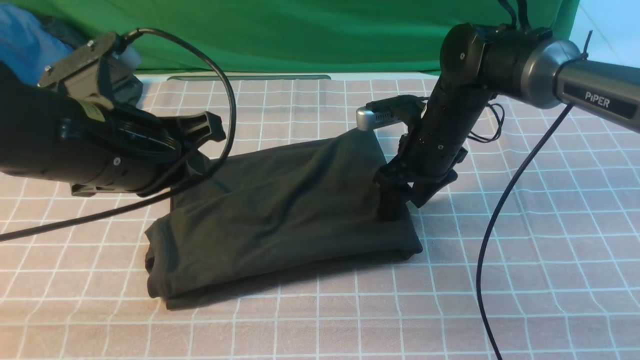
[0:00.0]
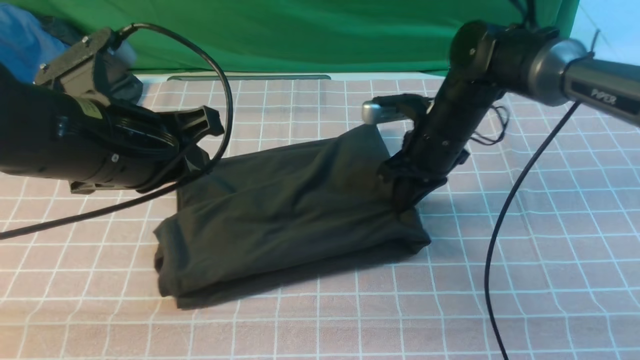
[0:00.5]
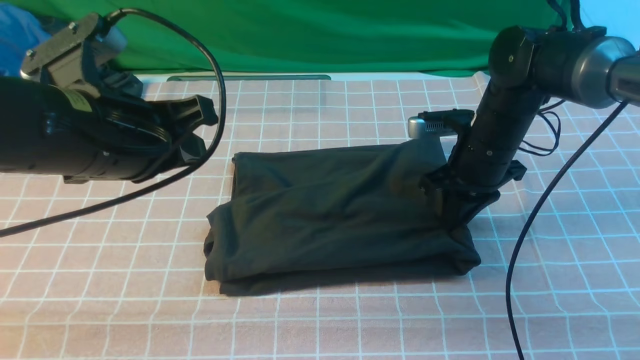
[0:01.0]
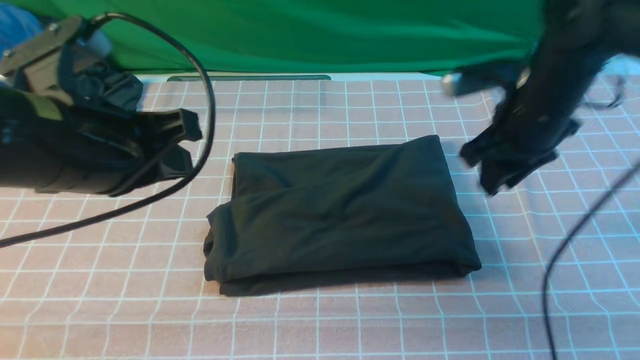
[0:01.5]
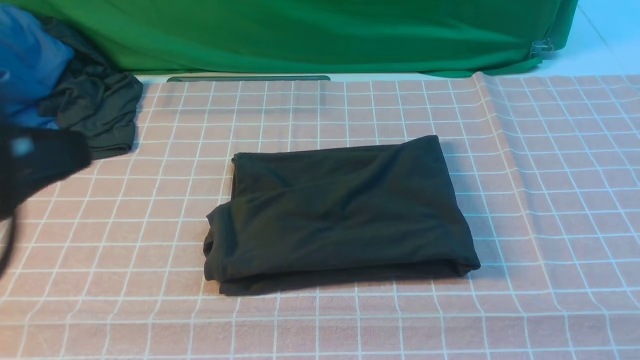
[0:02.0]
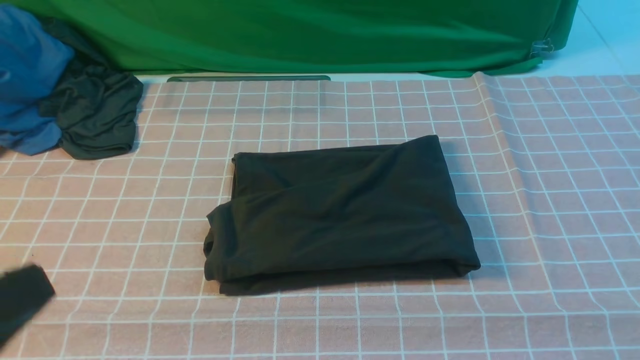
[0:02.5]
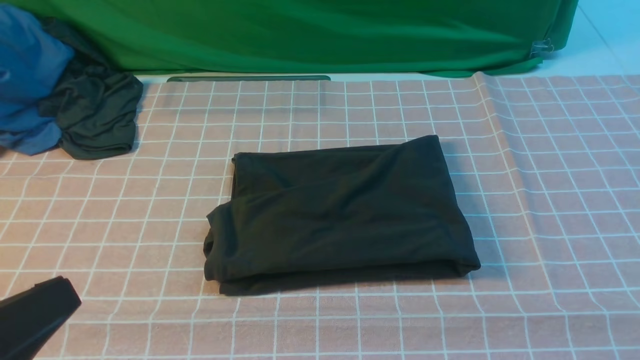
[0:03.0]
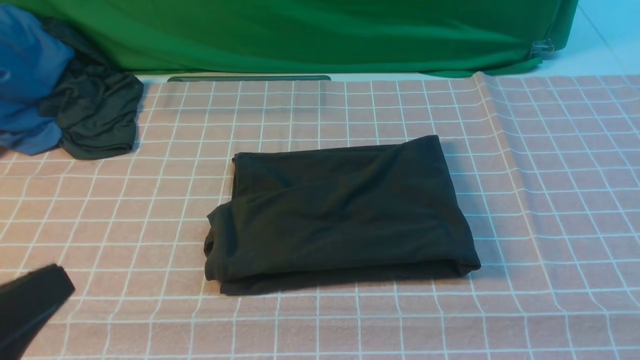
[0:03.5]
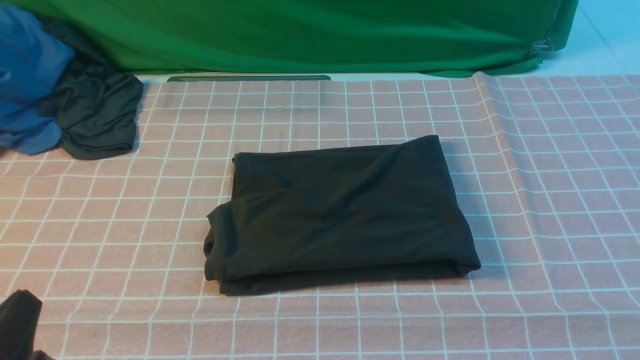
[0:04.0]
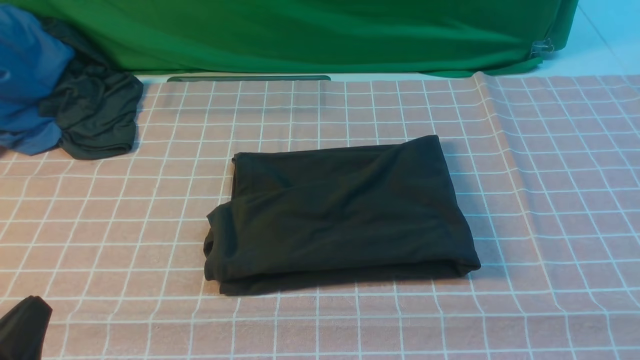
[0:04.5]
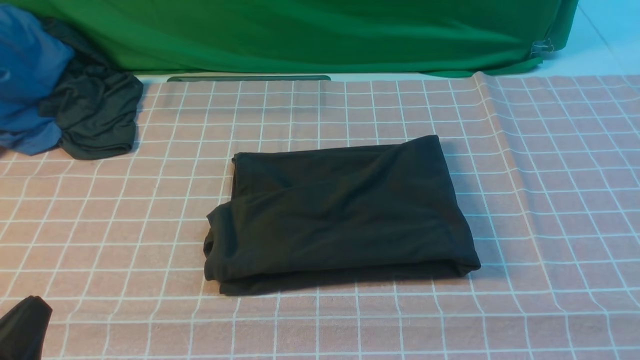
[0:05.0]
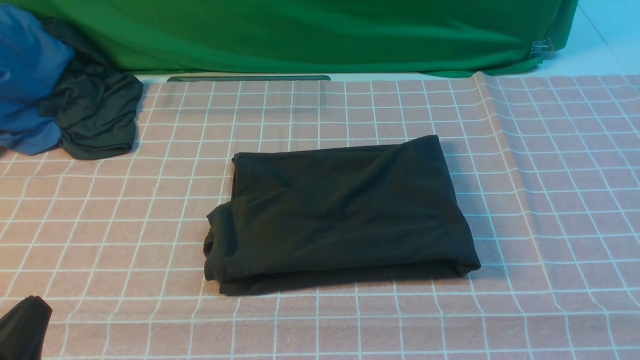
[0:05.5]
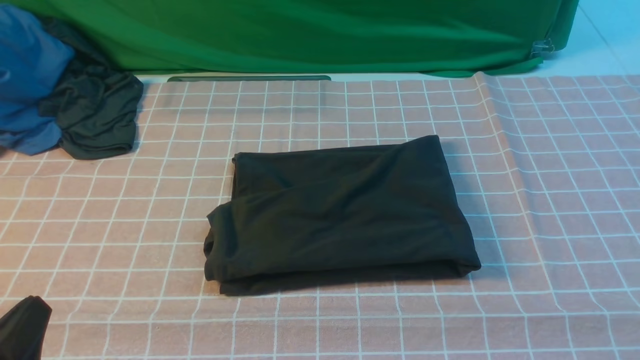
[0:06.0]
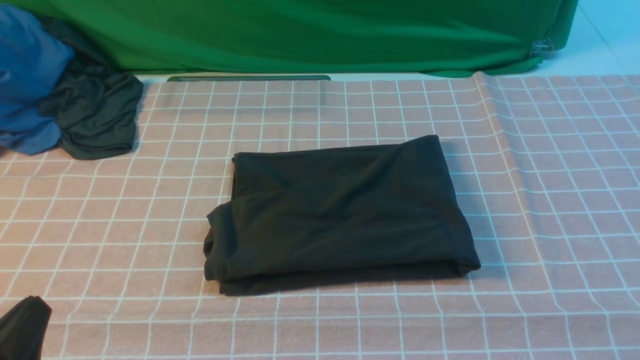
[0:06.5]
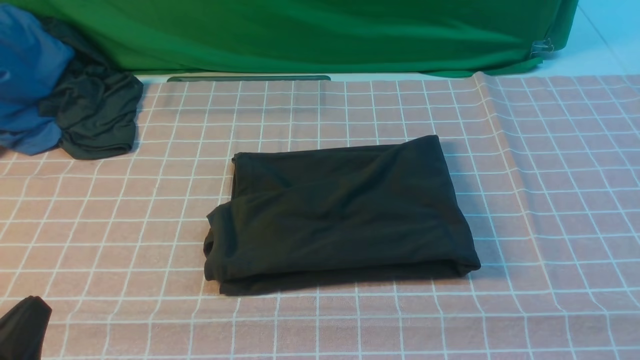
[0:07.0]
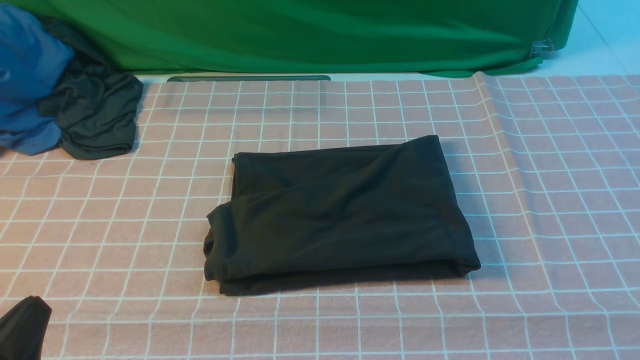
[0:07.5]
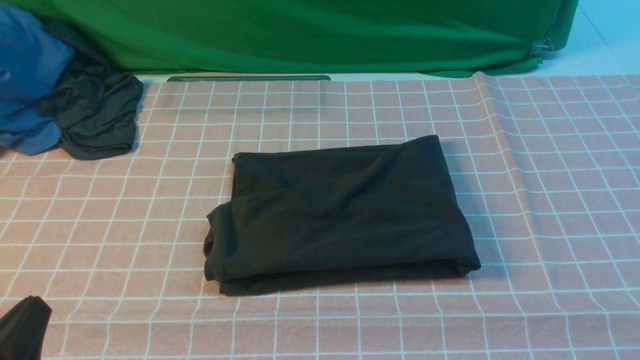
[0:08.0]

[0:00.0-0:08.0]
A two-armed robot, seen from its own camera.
0:00.0 to 0:02.0: The right gripper shifts some 40 cm backward, upward and to the right, and closes; the left gripper is displaced backward and upward by some 15 cm.
0:02.0 to 0:04.0: The left gripper is displaced downward by some 20 cm.

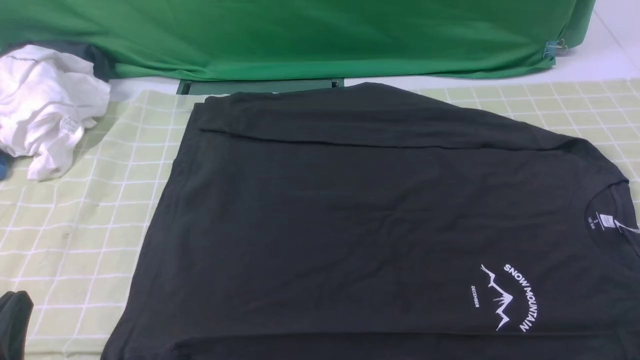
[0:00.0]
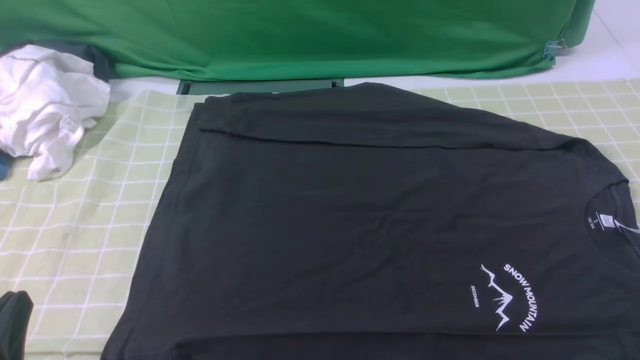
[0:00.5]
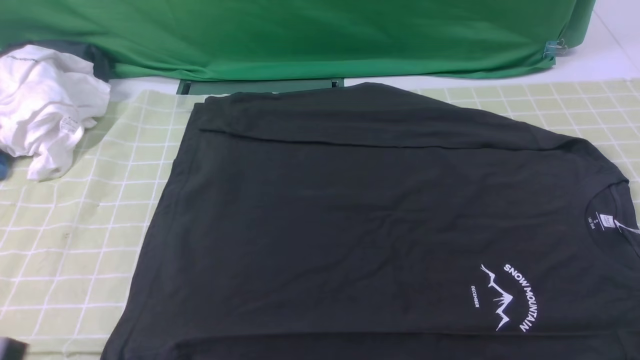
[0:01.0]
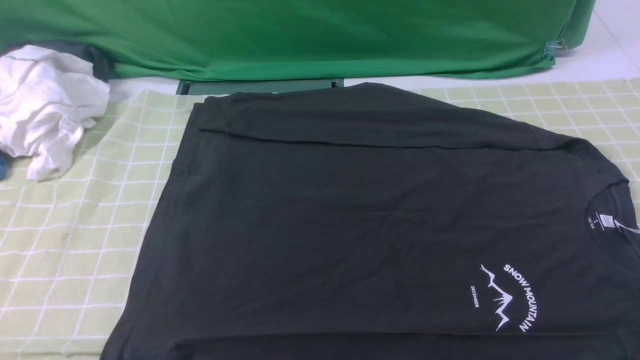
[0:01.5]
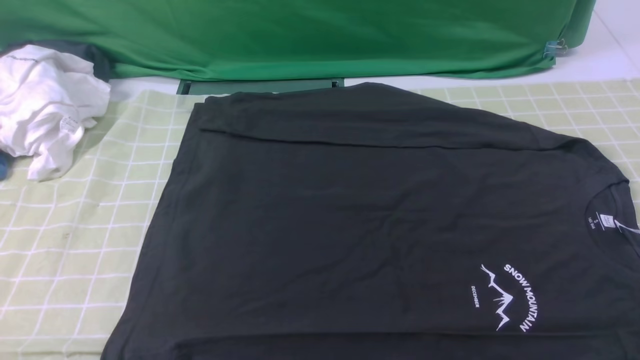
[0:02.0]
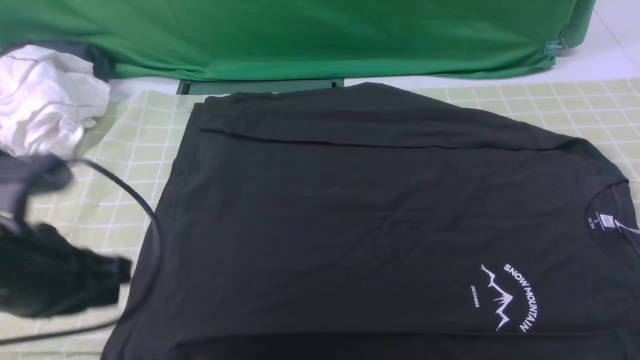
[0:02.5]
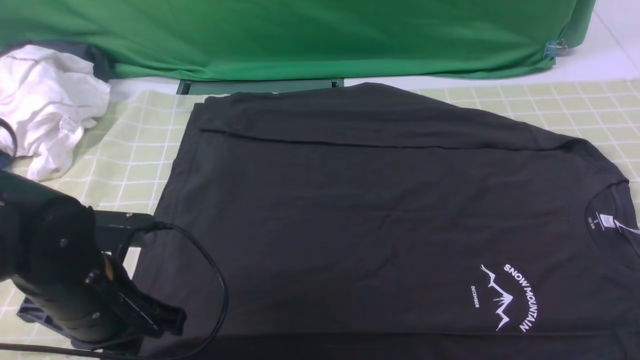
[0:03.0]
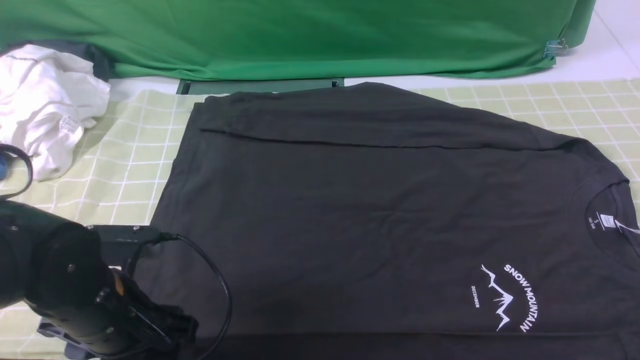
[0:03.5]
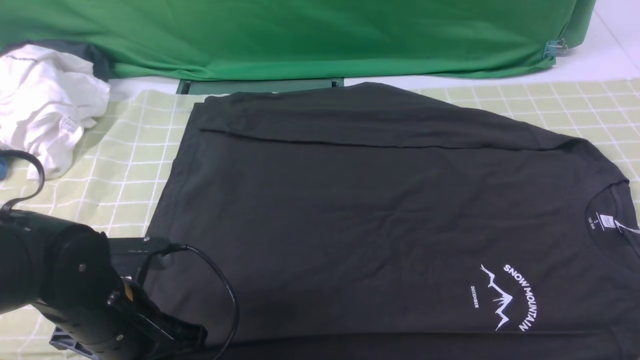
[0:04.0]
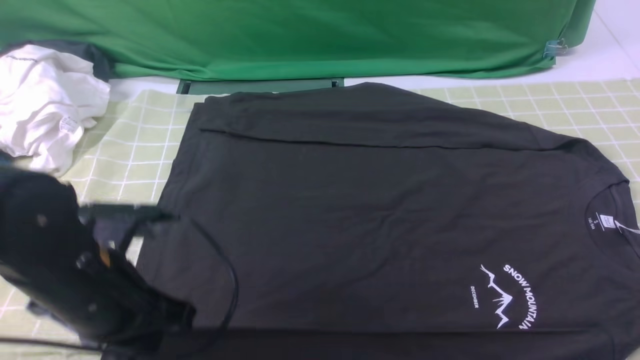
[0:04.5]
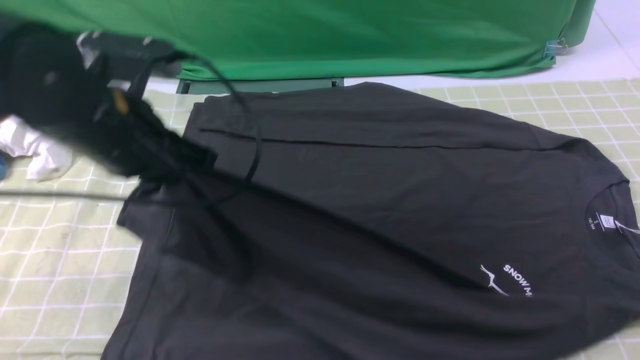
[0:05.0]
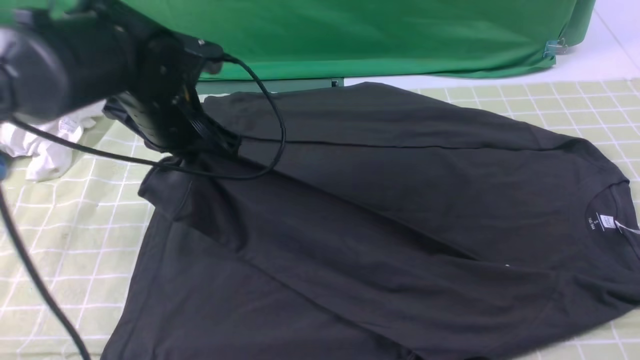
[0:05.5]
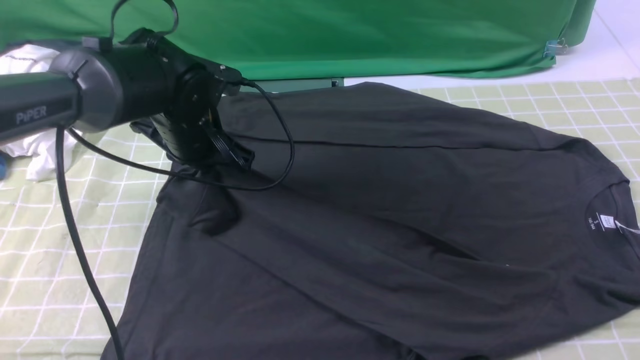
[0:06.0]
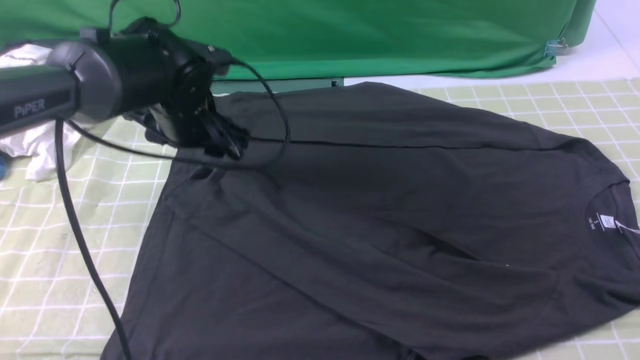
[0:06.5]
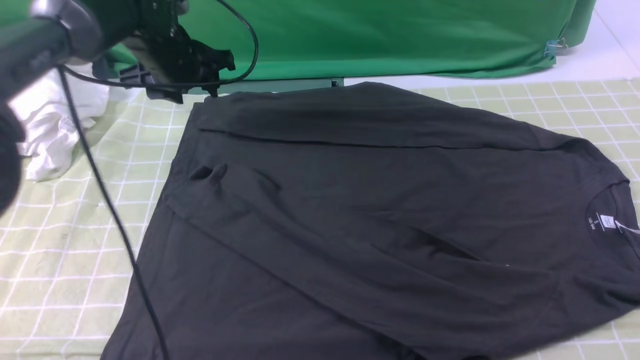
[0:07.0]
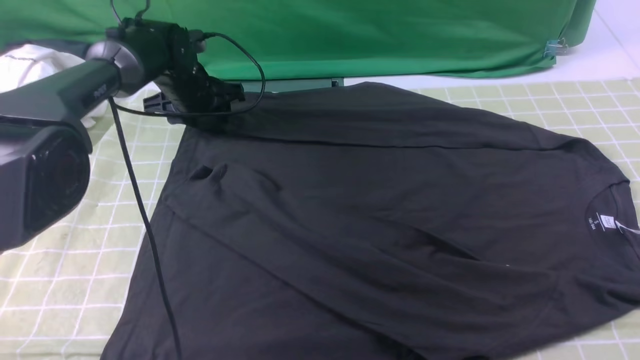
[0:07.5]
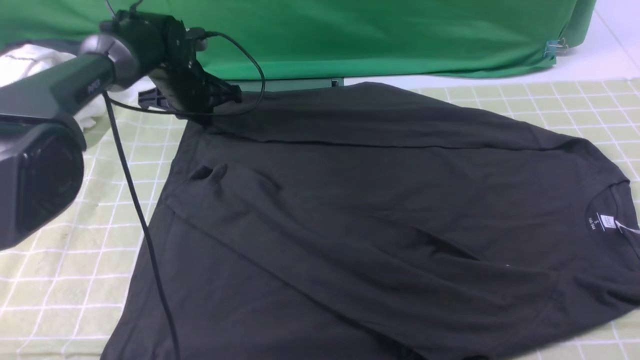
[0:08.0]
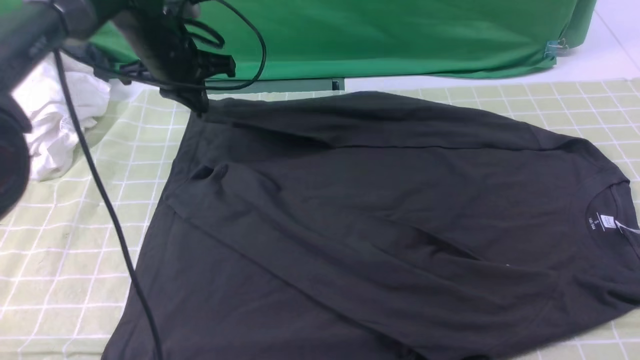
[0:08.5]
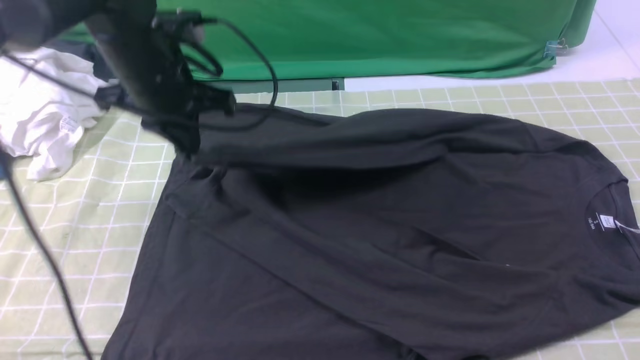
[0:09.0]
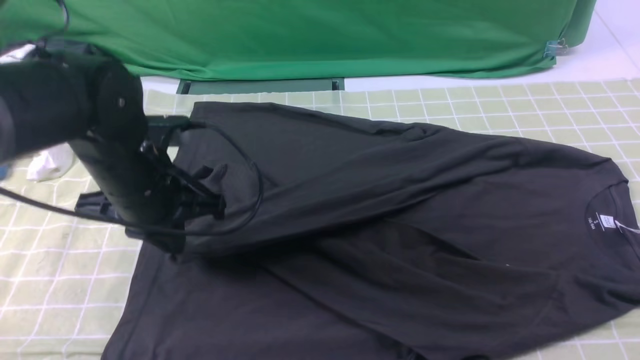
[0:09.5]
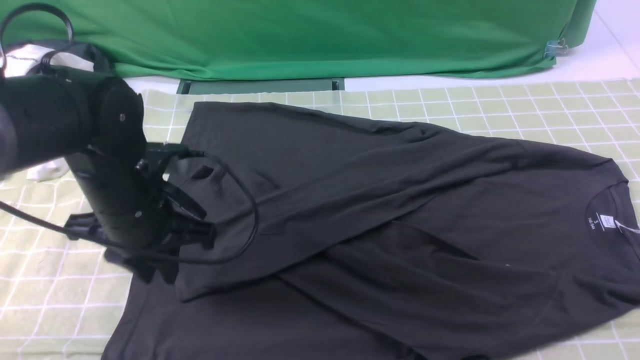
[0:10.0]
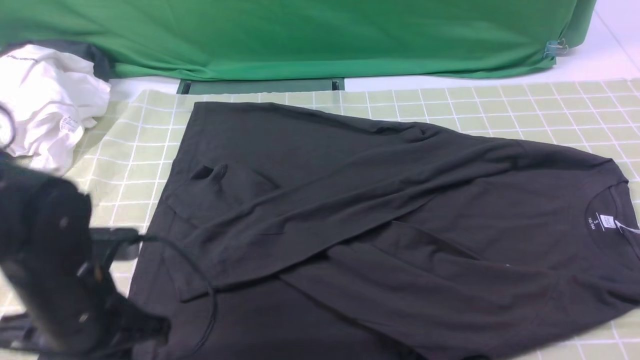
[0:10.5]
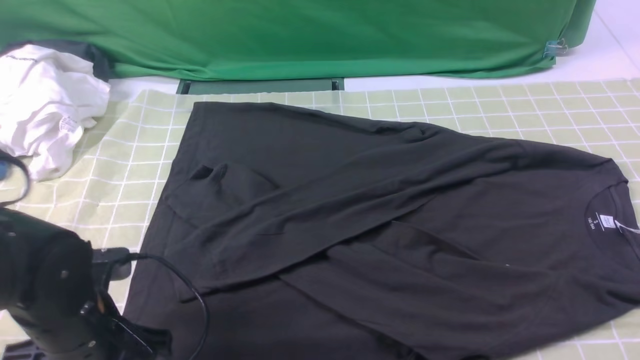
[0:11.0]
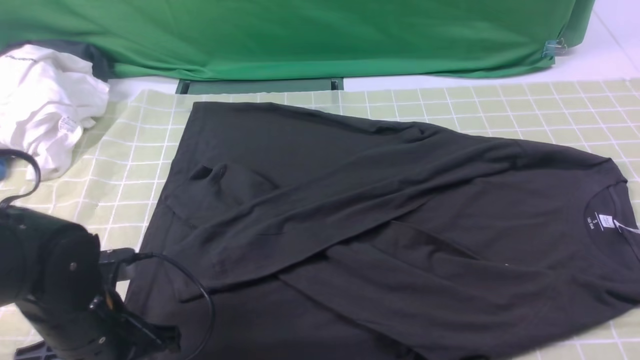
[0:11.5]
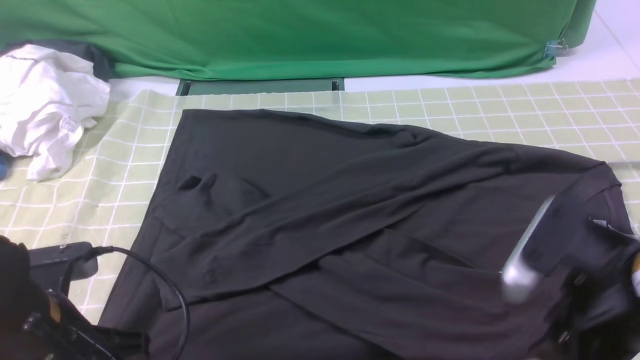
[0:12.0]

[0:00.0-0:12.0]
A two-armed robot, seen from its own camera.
Step, 0:00.0 to 0:04.0: use the left arm to clamp the cuff closest to it.
Step, 0:04.5 to 0:06.0: use the left arm to drag and place the cuff at the centered position on the left edge of the fabric.
Step, 0:06.5 to 0:07.5: use the left arm to clamp the cuff farthest from it.
Step, 0:08.0 to 0:09.5: use the left arm to drag and drop the cuff onto the cuff closest to the left arm.
0:00.0 to 0:02.0: The left gripper heads upward, covering roughly 15 cm.
0:02.0 to 0:04.0: The left gripper goes roughly 20 cm downward and forward, and opens and closes again.
0:04.0 to 0:06.0: The left gripper moves forward, approximately 20 cm.
0:06.0 to 0:08.0: The left gripper travels forward and to the left by some 15 cm, and opens, then closes again.
0:08.0 to 0:10.0: The left gripper goes approximately 25 cm backward, and opens its fingers.
0:10.0 to 0:12.0: The right gripper heads downward and to the left, covering approximately 15 cm, and opens up. The left gripper shifts approximately 10 cm backward, and closes its fingers.
